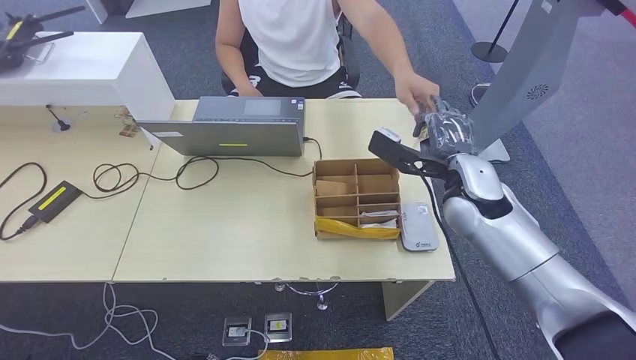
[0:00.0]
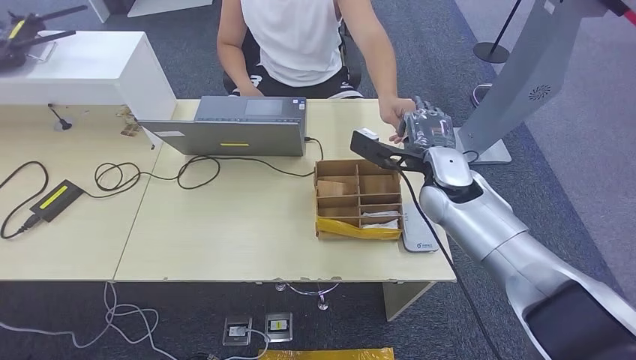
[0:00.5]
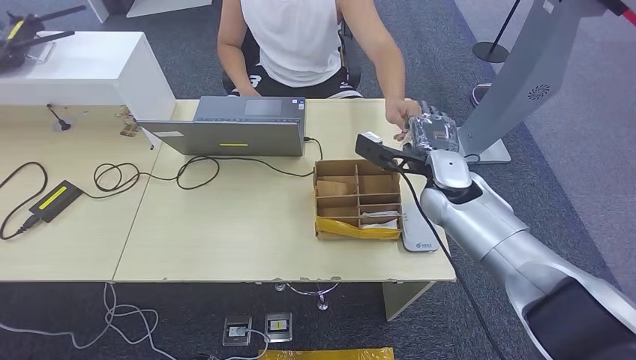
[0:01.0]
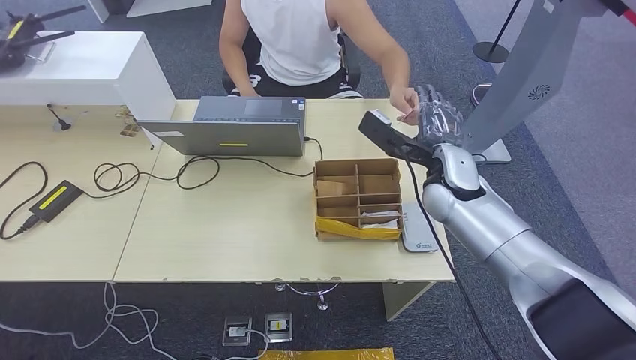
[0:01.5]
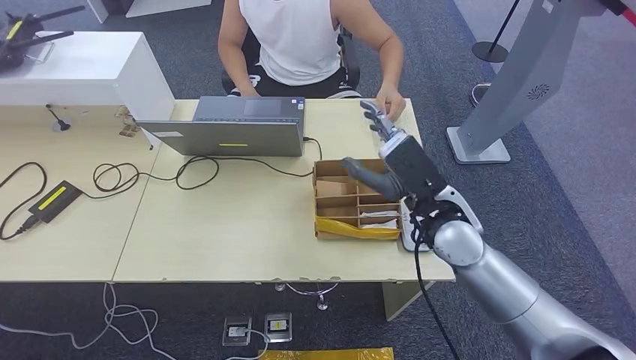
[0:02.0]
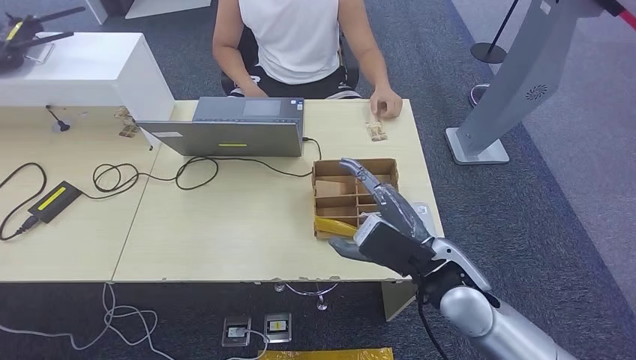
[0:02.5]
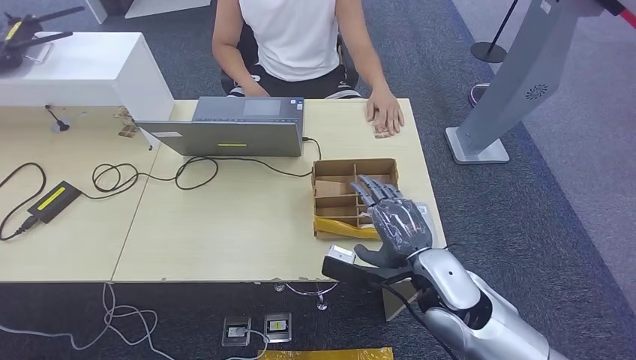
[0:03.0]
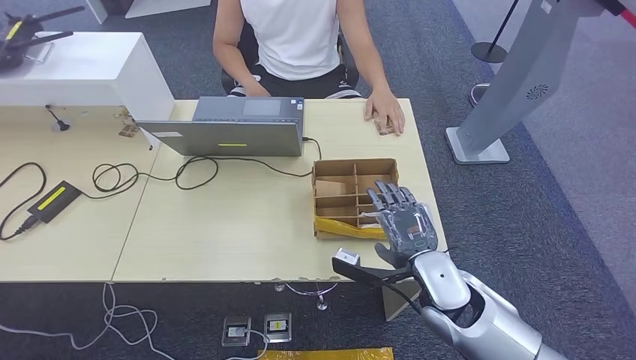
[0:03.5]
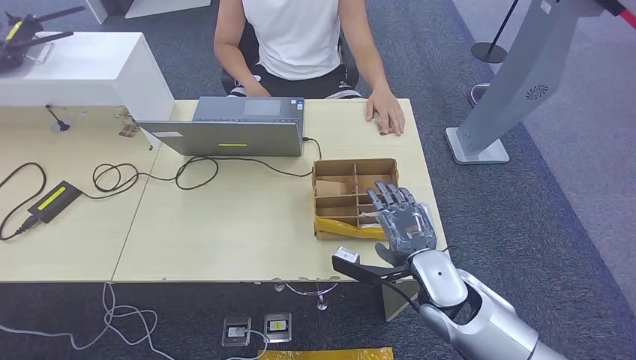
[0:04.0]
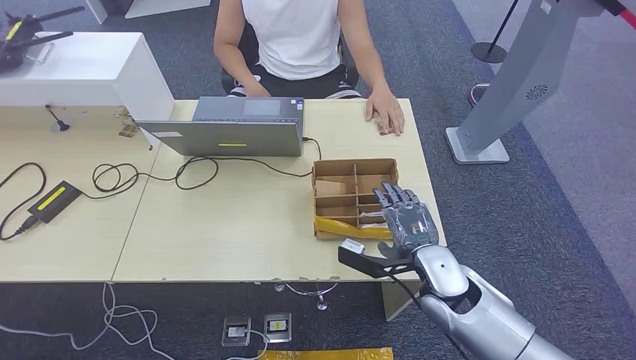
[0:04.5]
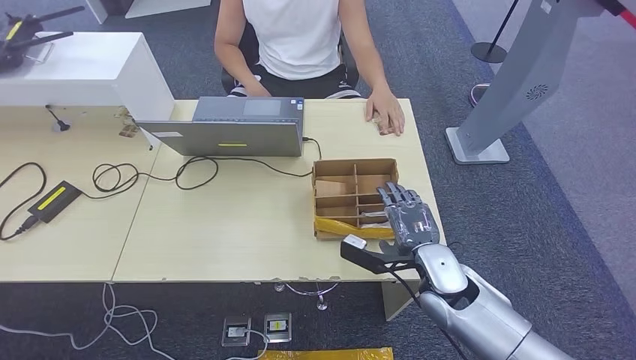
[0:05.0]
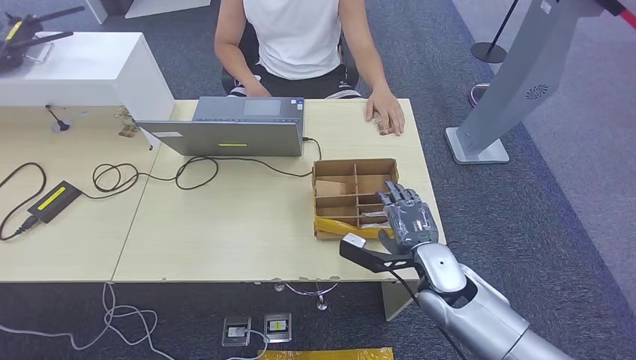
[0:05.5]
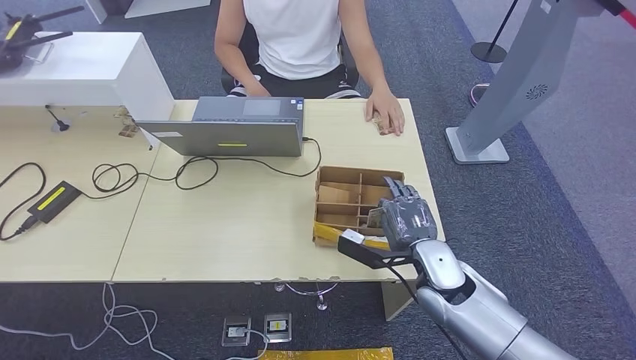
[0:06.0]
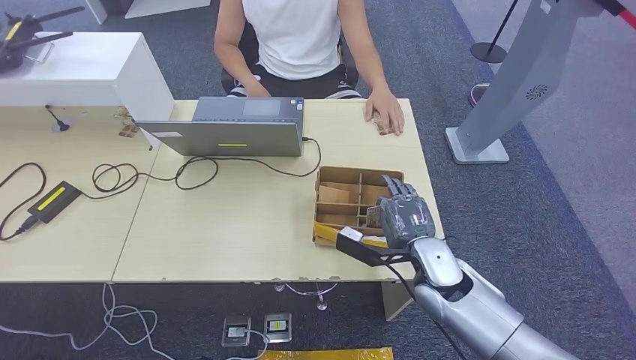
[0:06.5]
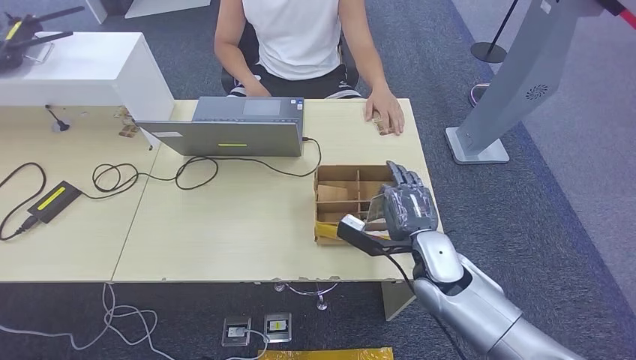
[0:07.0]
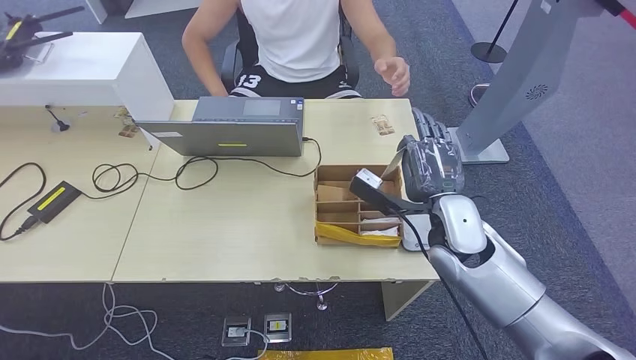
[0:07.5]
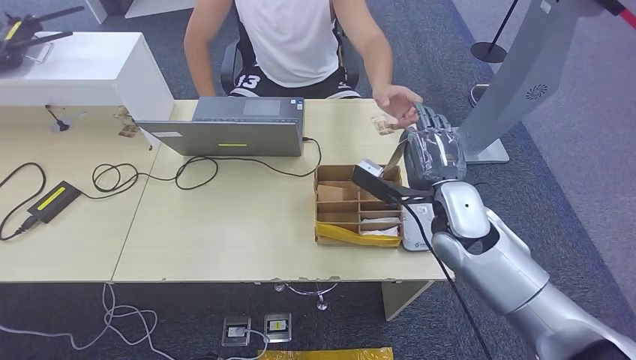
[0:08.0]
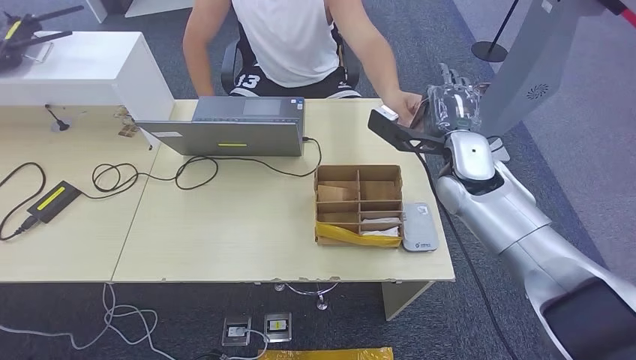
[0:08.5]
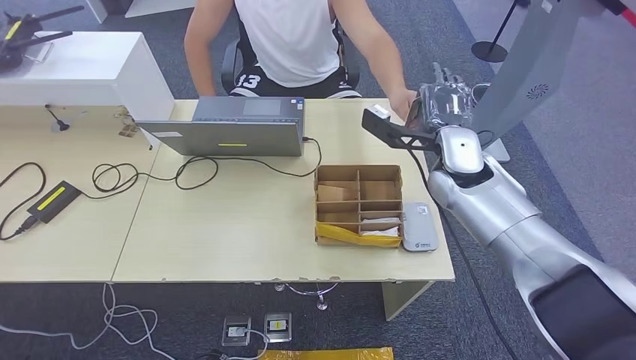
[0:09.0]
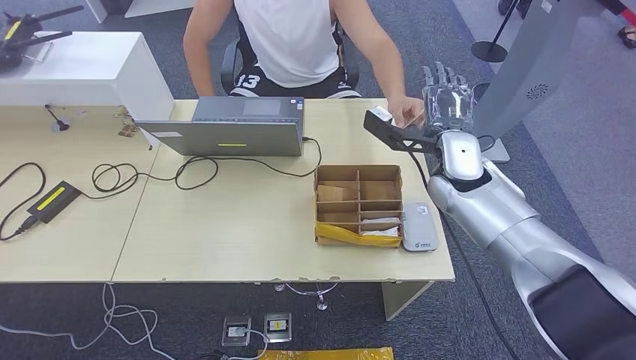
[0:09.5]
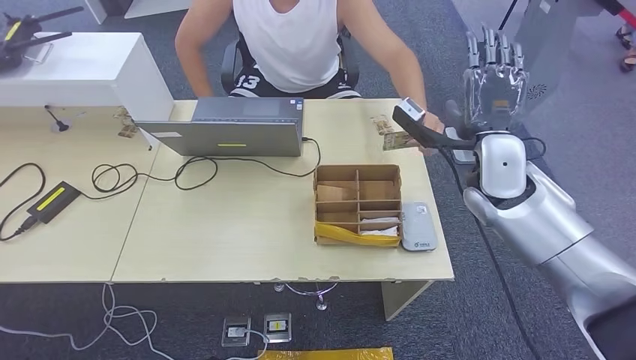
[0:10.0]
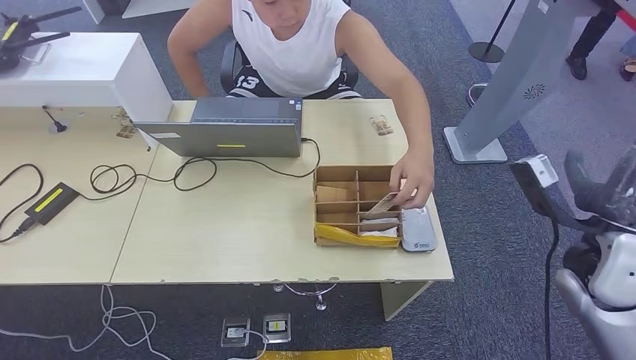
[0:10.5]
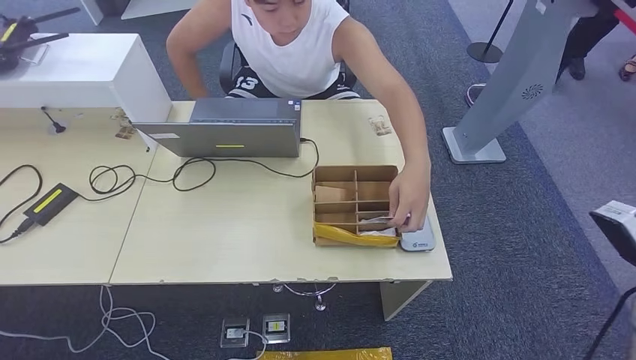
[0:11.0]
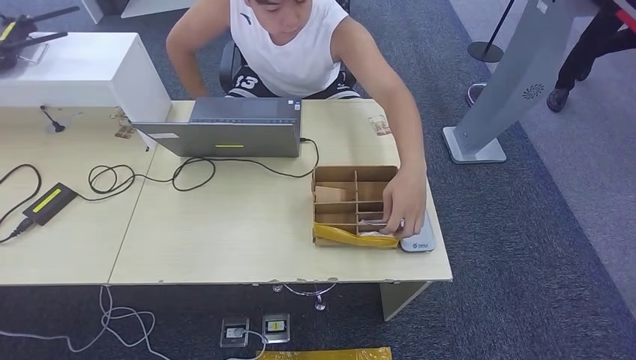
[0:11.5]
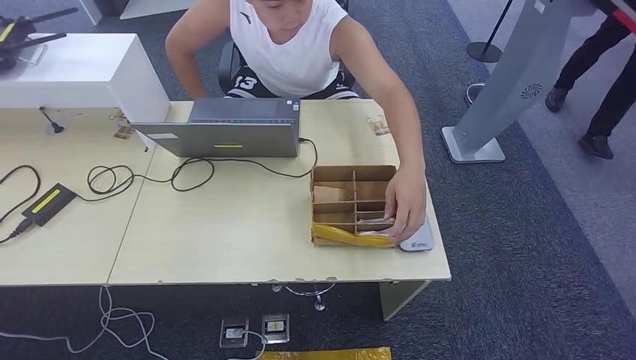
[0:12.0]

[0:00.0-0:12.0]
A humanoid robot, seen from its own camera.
Step, 0:00.0 to 0:02.0: Hand the ID card to the person.
Step, 0:02.5 to 0:07.5: Pick up the room key from the key card box.
0:00.0 to 0:02.0: The right hand moves backward, roughly 5 cm.
0:02.0 to 0:04.0: The right hand heads downward and backward, covering some 10 cm.
0:04.0 to 0:06.0: There are only small adjustments of the hands.
0:06.0 to 0:08.0: The right hand goes roughly 10 cm upward.
0:08.0 to 0:10.0: The right hand shifts roughly 5 cm upward.

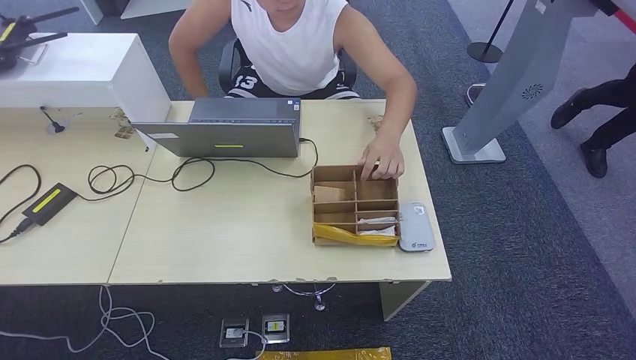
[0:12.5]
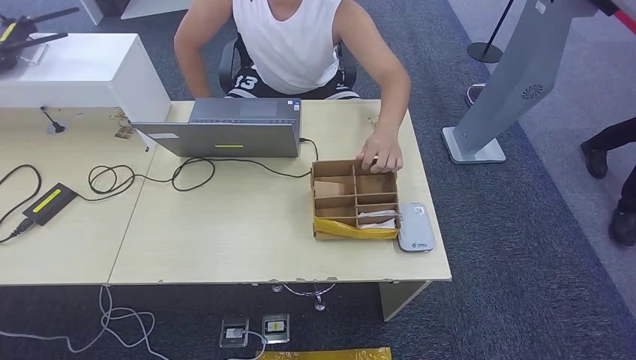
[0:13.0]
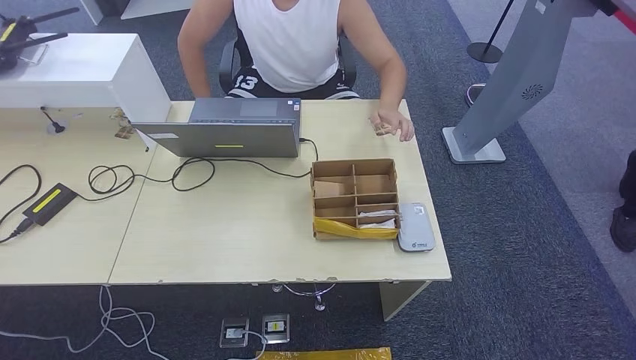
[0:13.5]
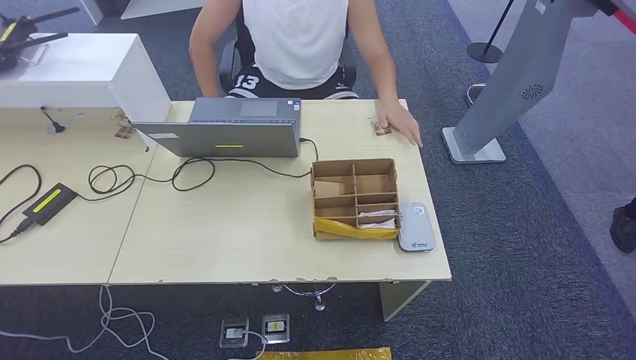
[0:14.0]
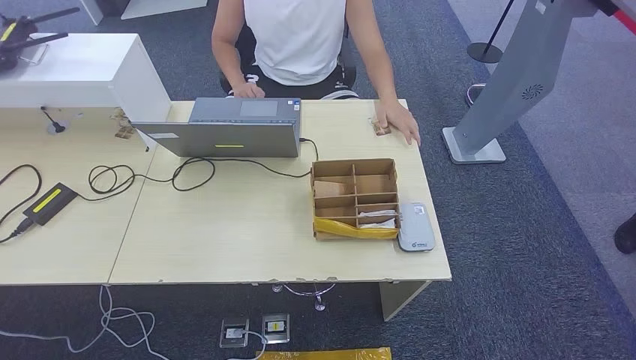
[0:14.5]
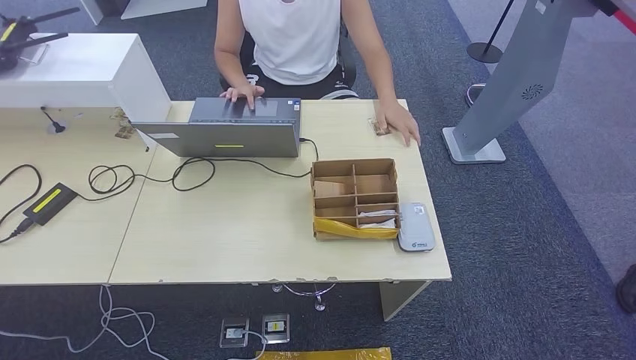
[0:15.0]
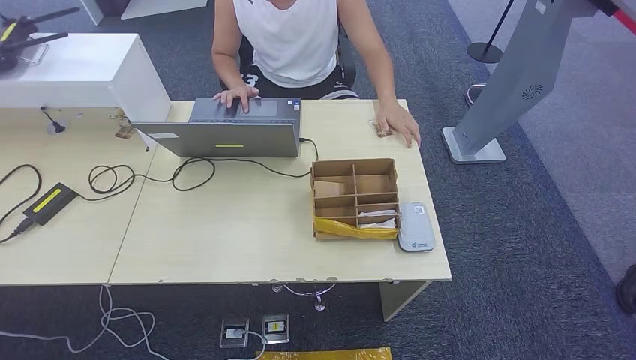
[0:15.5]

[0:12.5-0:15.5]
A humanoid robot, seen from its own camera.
Step, 0:12.5 to 0:15.5: Hand the room key to the person.
0:14.0 to 0:15.5: The hands make only small movements.
